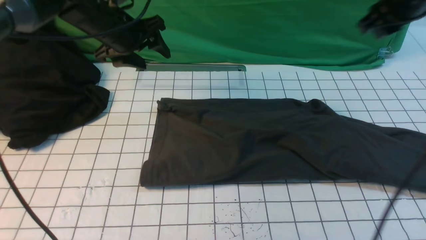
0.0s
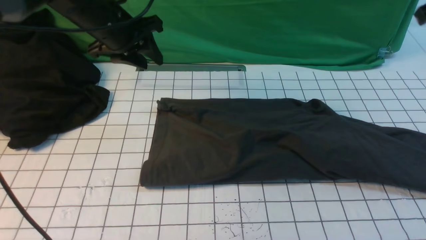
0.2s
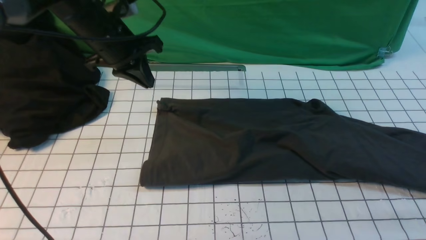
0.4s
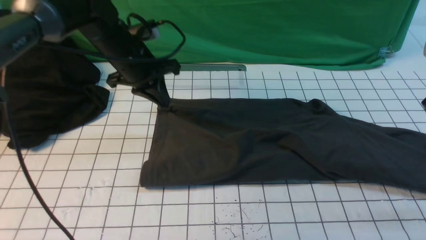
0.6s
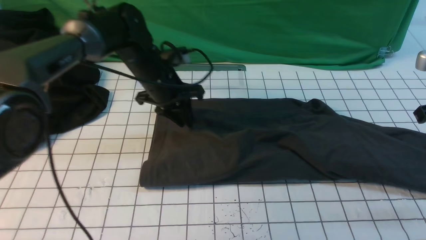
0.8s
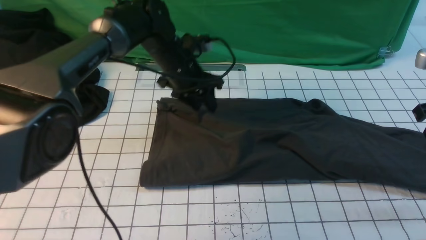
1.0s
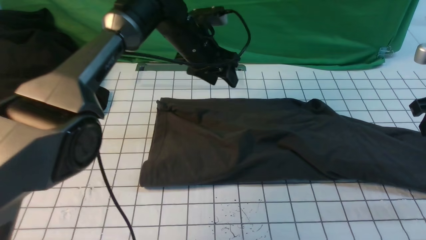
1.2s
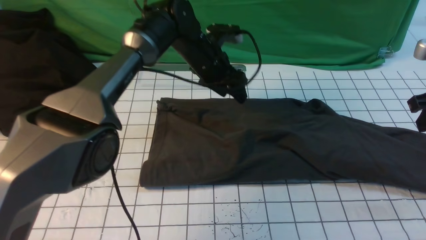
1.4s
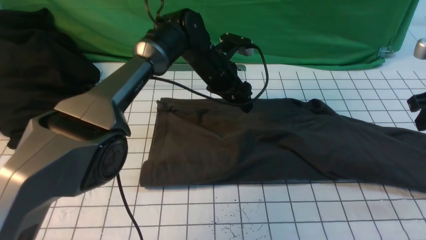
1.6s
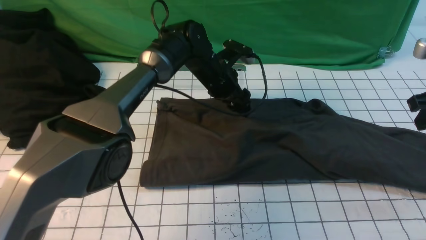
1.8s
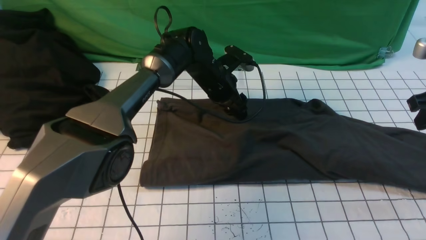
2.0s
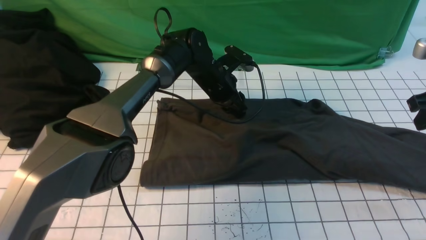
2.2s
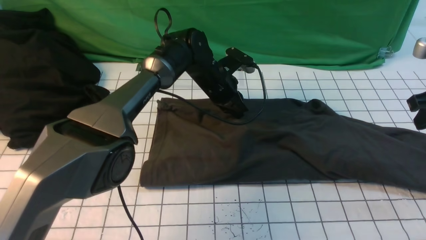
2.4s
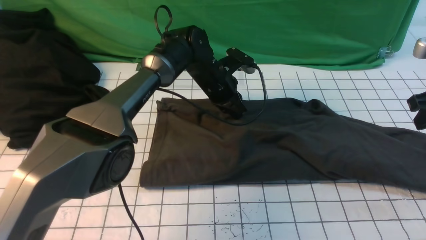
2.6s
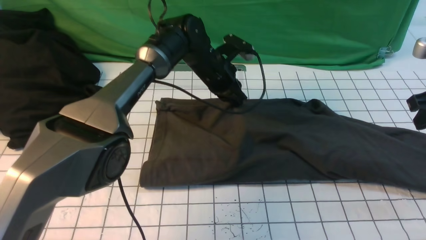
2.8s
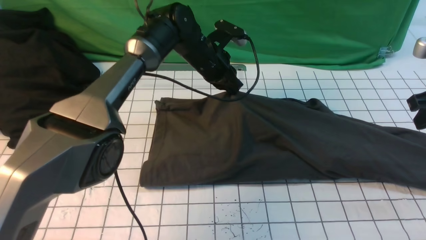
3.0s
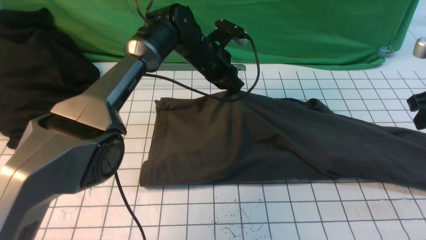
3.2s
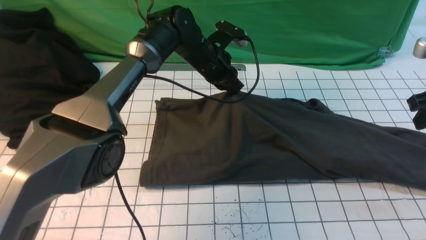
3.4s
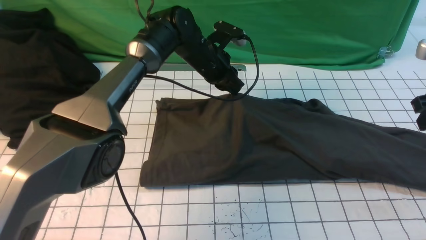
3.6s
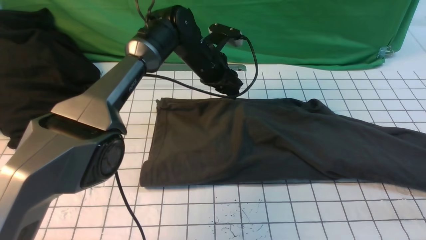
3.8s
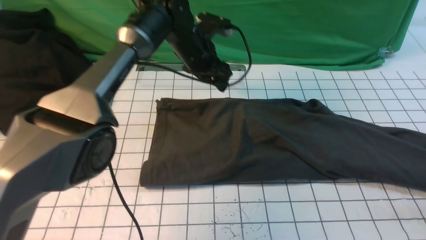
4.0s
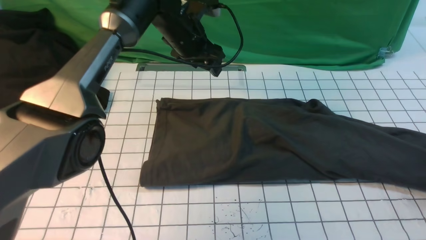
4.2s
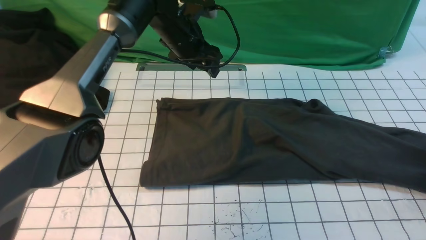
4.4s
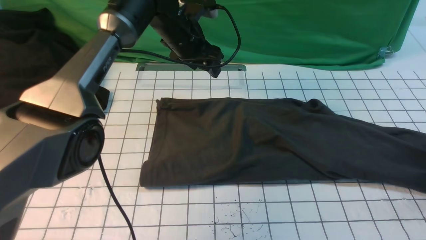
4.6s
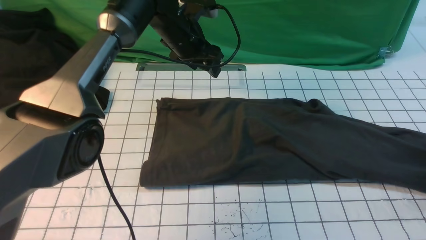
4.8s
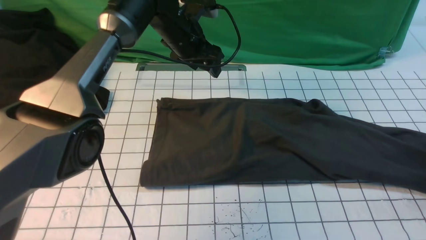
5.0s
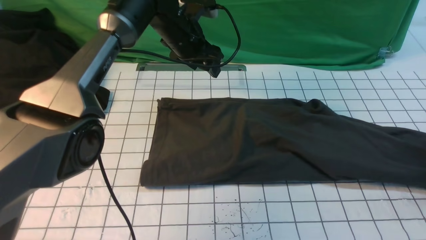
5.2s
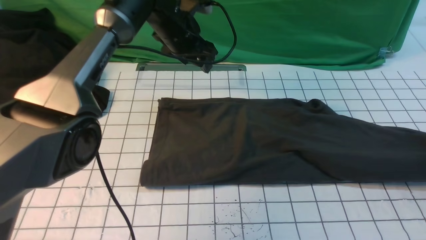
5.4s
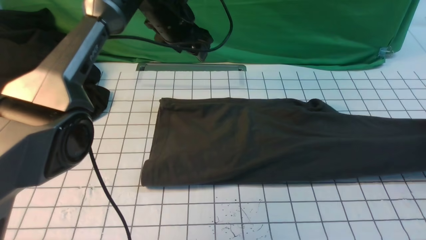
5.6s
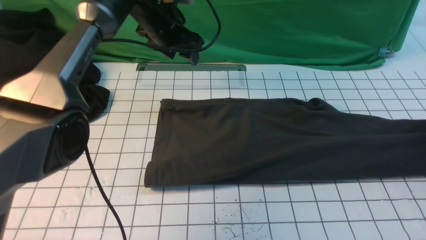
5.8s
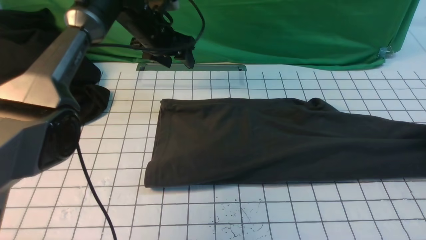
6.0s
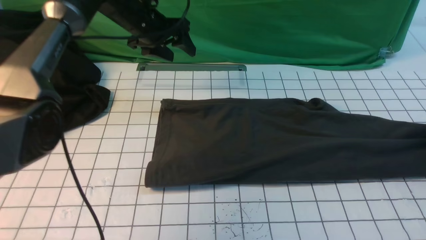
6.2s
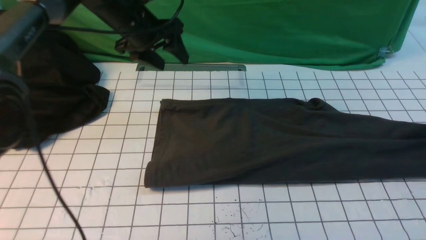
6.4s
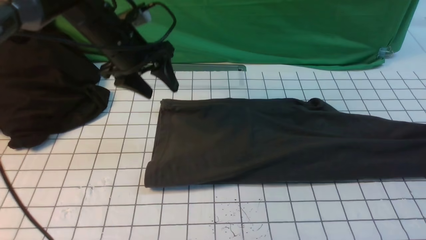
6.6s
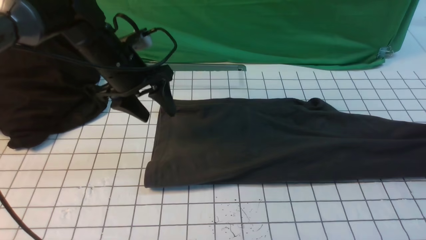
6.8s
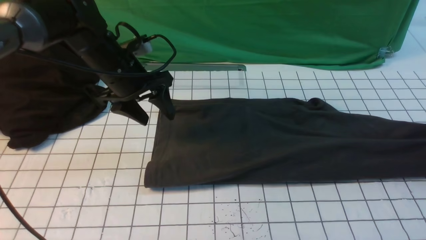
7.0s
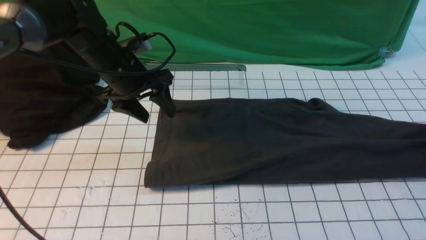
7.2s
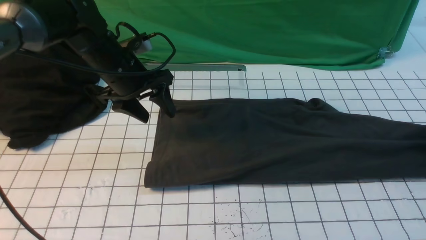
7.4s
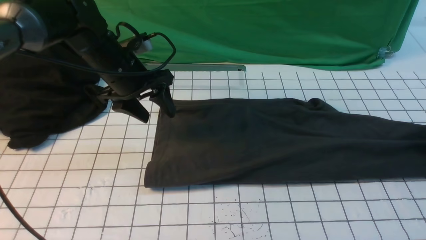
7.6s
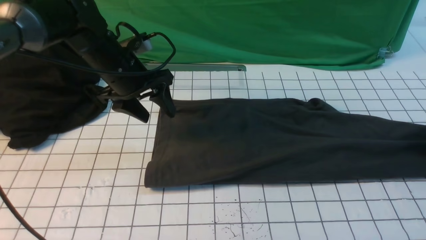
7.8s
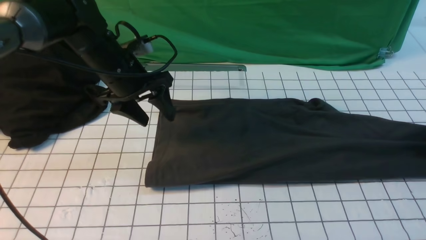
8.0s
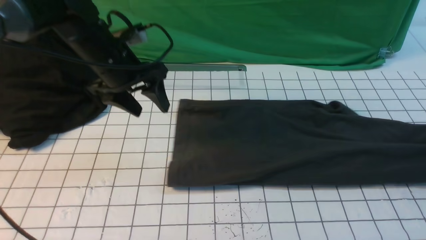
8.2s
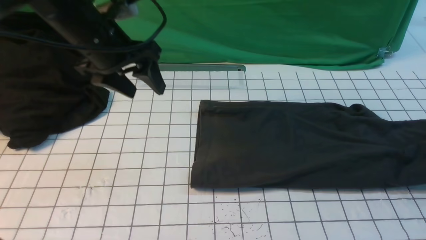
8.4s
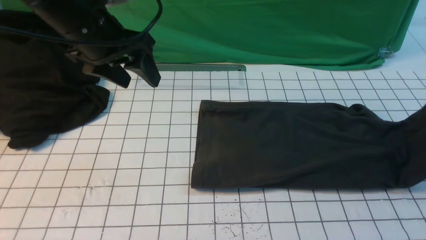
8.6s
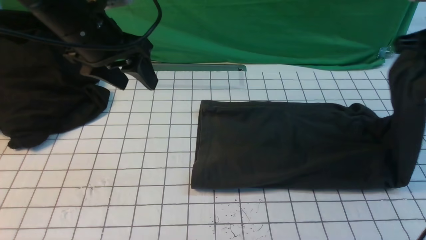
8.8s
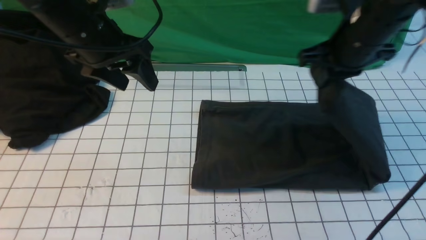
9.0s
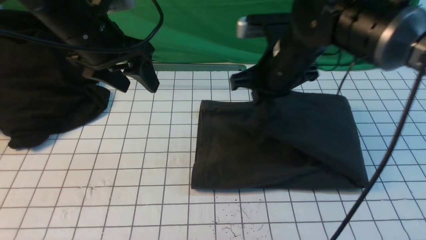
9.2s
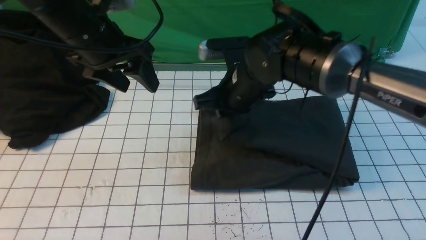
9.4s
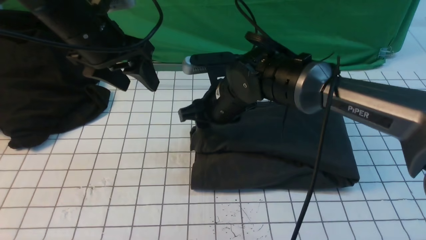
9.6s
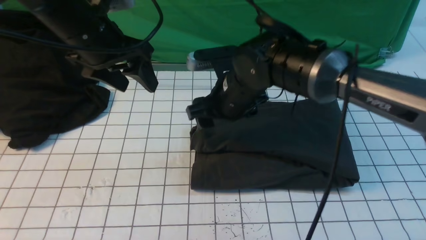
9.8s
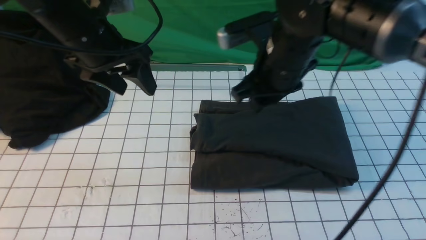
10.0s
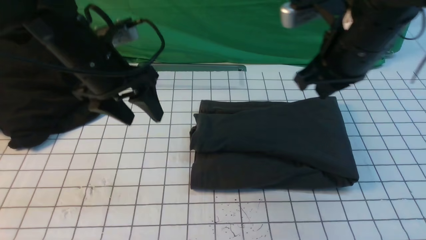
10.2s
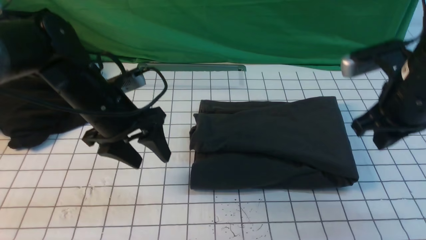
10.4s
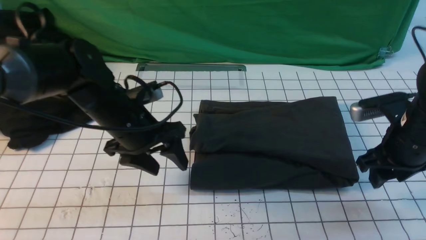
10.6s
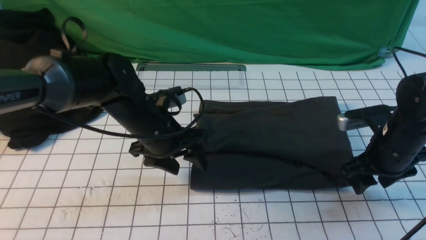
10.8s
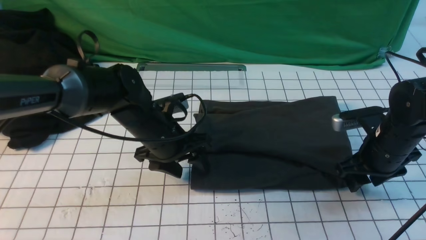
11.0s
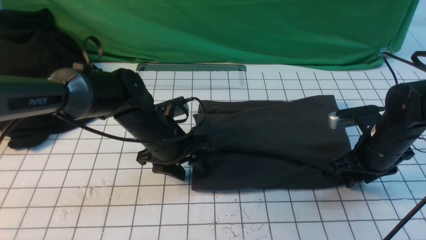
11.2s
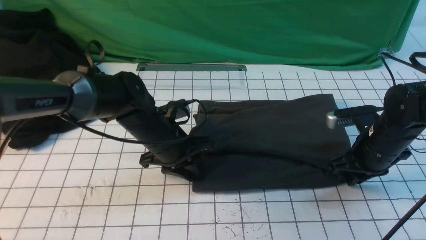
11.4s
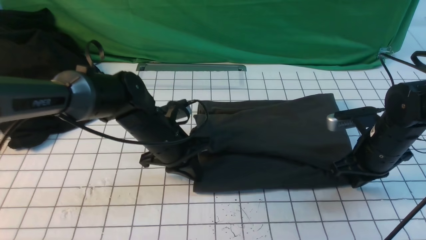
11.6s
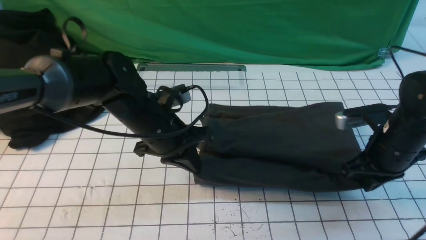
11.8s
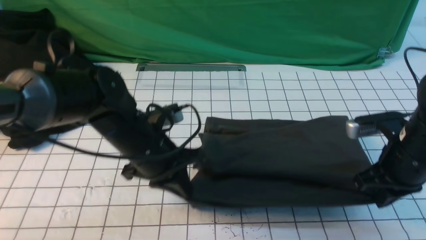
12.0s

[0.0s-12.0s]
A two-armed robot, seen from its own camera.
Step, 0.0s to 3.8s: use both arms to drag the lower edge of the fabric forward and fold it over the upper edge.
Step, 4.0s to 7.8s: use the right arm to clamp the right edge of the fabric.
Step, 8.0s to 9.6s: use the right arm to drag the right edge of the fabric to the left and folds it over the left edge.
0.0s to 1.6s: The left gripper shifts some 20 cm to the right and downward, and closes and opens again. Meanwhile the right gripper goes about 15 cm backward, downward and to the right.
1.6s to 3.0s: The left gripper closes up.
3.0s to 4.4s: The right gripper heads downward and to the right, covering some 15 cm, and opens up; the left gripper moves upward, about 5 cm, and opens its fingers.
4.4s to 6.0s: The right gripper travels forward by about 5 cm, and closes and opens again, while the left gripper moves to the left, some 5 cm.
6.0s to 7.6s: The right gripper travels upward and back again, some 5 cm each way, and opens and closes again. The left gripper is displaced backward by about 10 cm.
7.6s to 9.0s: The left gripper heads upward, covering about 10 cm. The right gripper heads to the left and upward, covering about 35 cm, and closes.
9.0s to 10.4s: The right gripper travels backward by roughly 5 cm, moves roughly 15 cm to the left and comes back, and opens, then closes again. Meanwhile the left gripper heads downward, covering roughly 10 cm.
10.4s to 12.0s: The right gripper moves downward, about 10 cm, and opens, then closes once more; the left gripper moves downward, roughly 5 cm, and closes up.

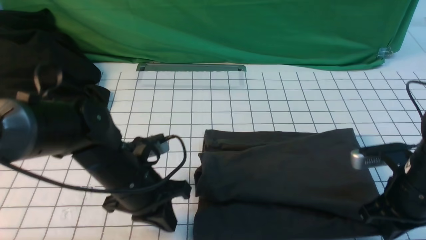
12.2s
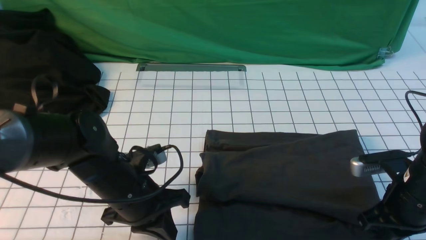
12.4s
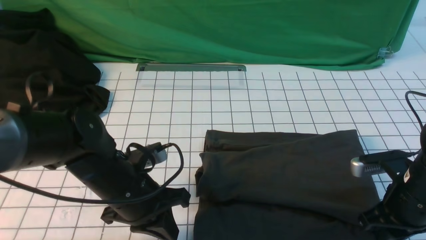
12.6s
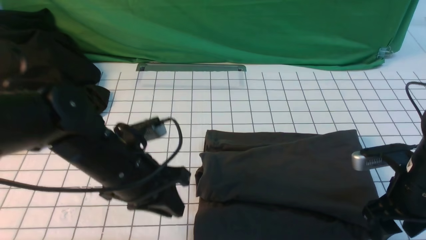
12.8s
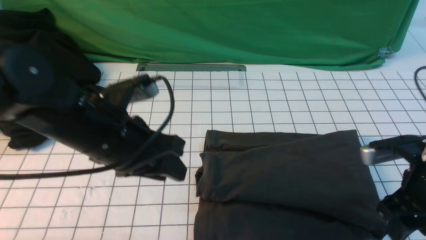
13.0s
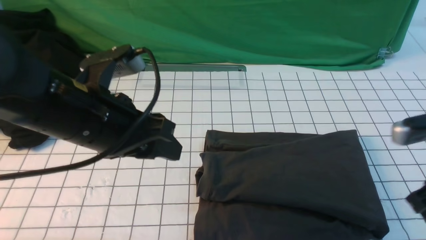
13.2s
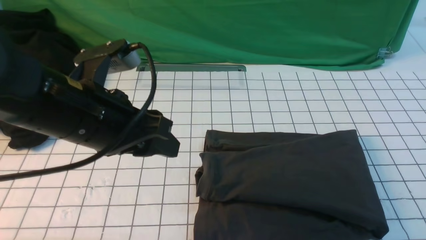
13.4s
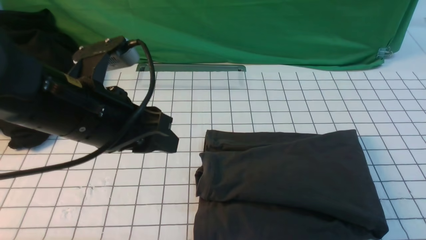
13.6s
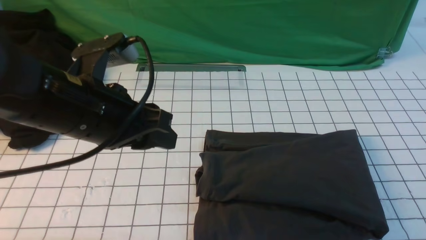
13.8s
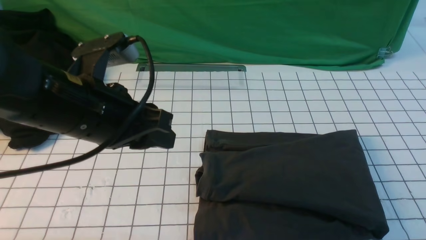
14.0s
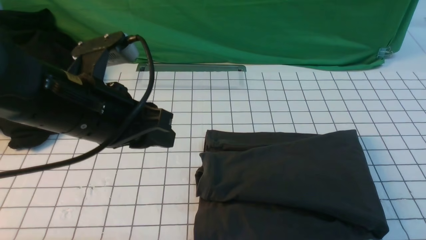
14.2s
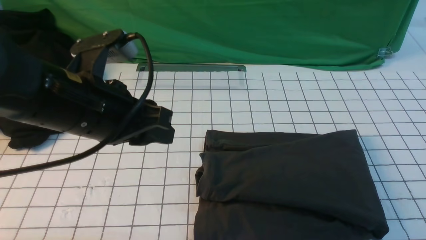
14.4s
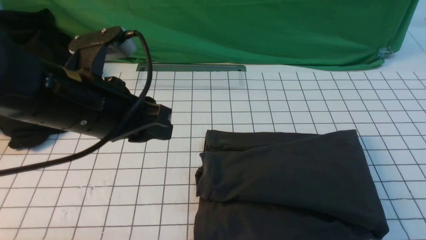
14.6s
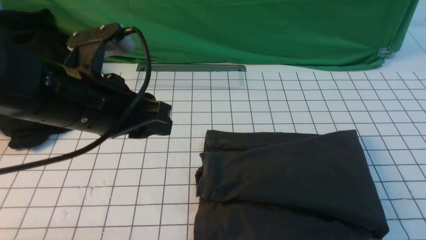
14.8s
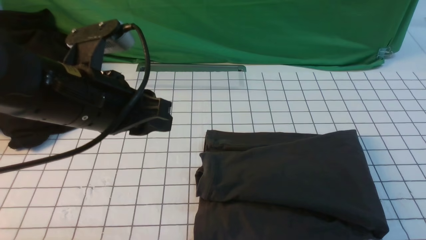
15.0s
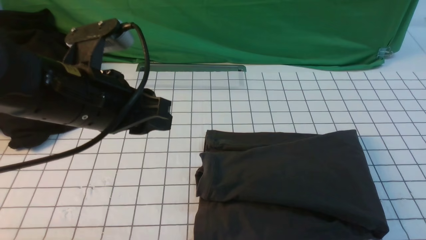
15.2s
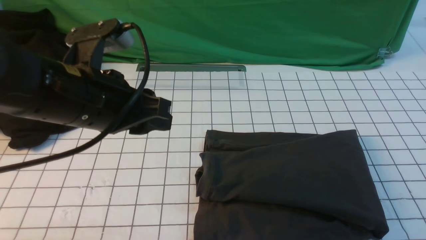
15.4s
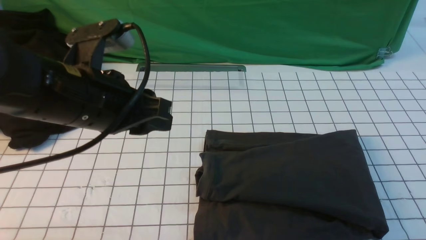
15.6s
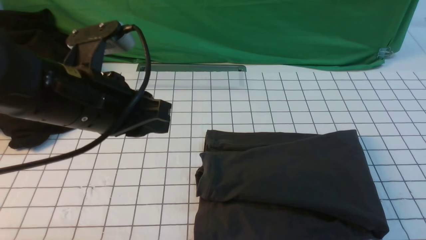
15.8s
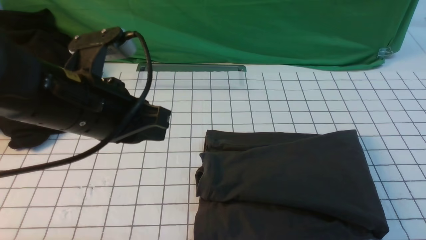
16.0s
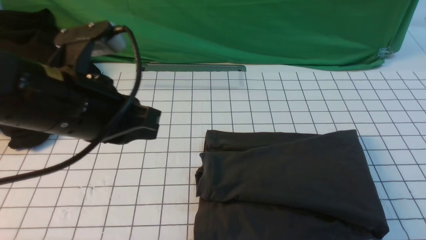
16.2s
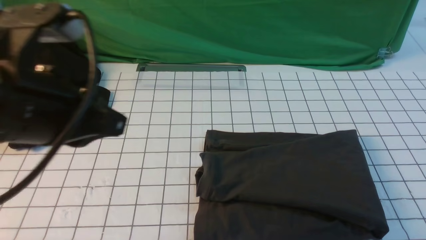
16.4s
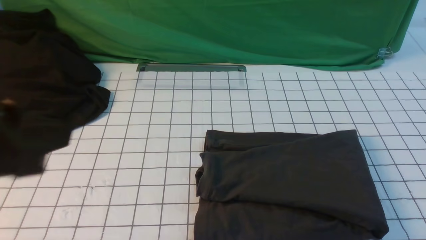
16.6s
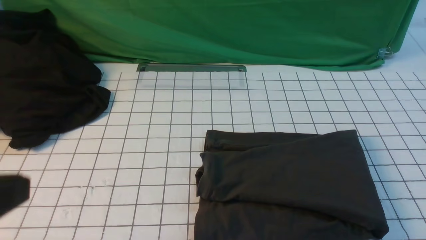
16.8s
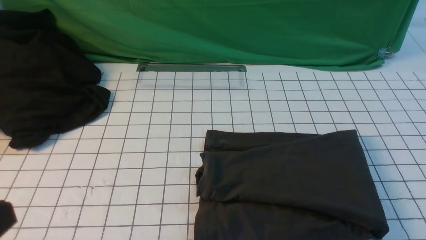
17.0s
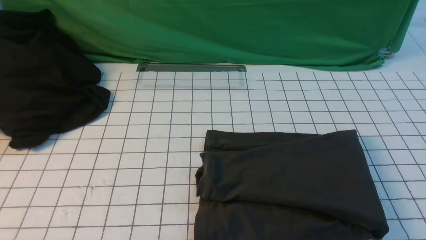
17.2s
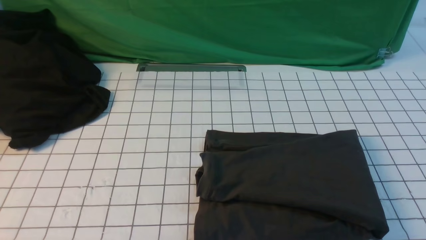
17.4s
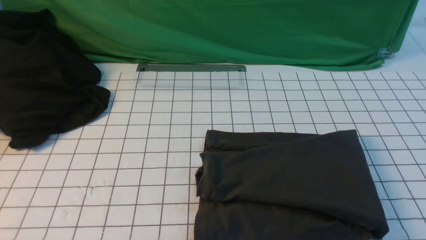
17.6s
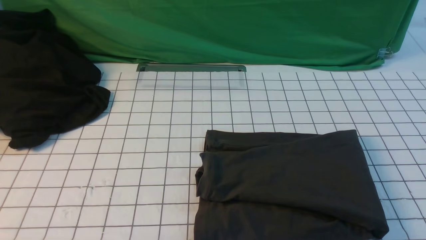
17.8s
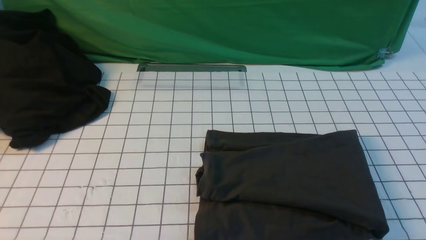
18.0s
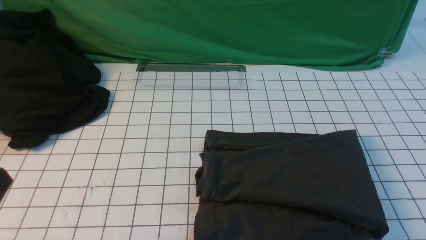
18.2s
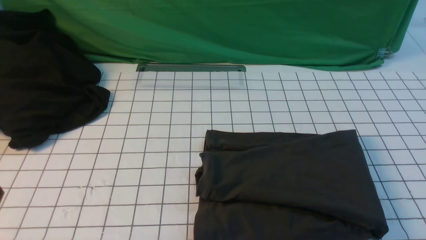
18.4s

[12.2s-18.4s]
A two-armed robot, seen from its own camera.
12.2s to 13.8s: The right gripper travels backward and upward by approximately 25 cm, and opens, then closes once more. Meanwhile the left gripper is displaced upward by some 15 cm, and opens.
13.8s to 15.4s: The right gripper travels downward by some 15 cm.
15.4s to 16.8s: The left gripper is displaced backward and to the left by some 20 cm, and closes.
16.8s to 18.4s: The left gripper is displaced downward by roughly 15 cm.
